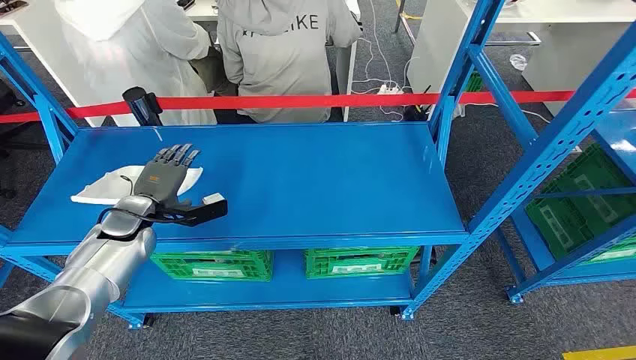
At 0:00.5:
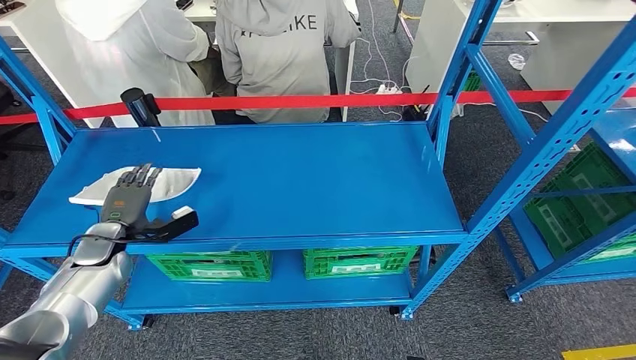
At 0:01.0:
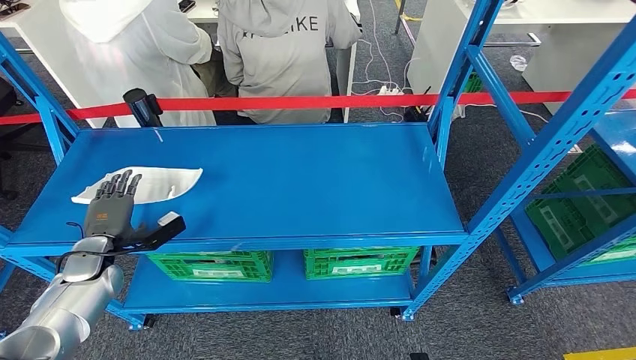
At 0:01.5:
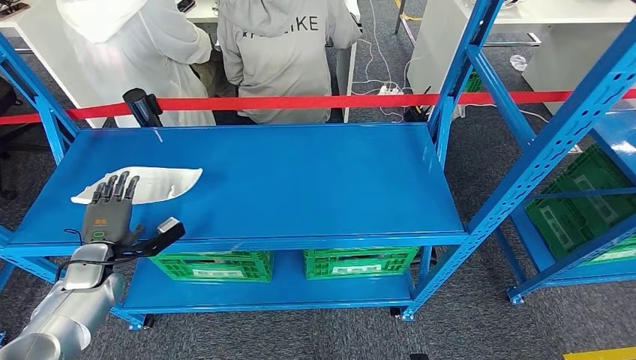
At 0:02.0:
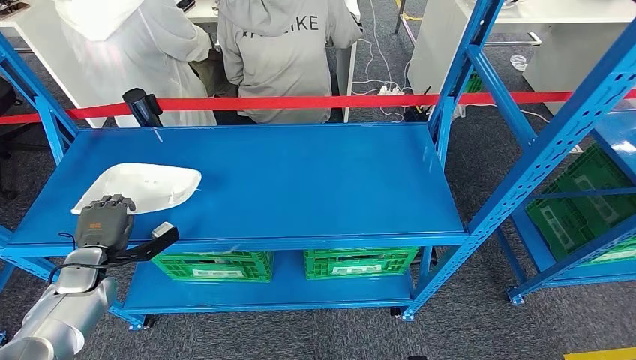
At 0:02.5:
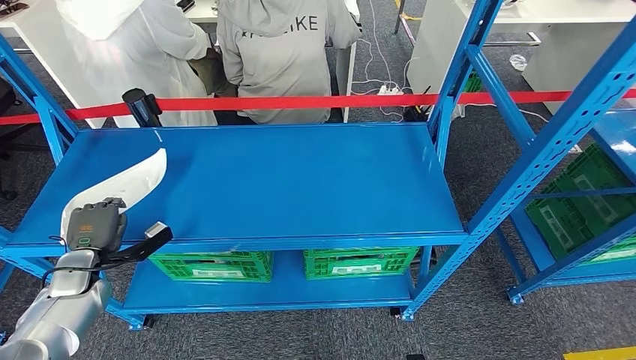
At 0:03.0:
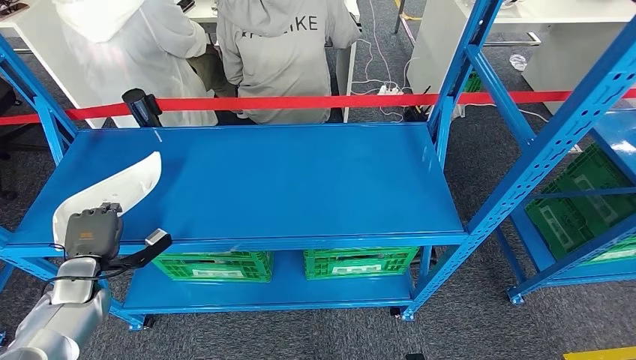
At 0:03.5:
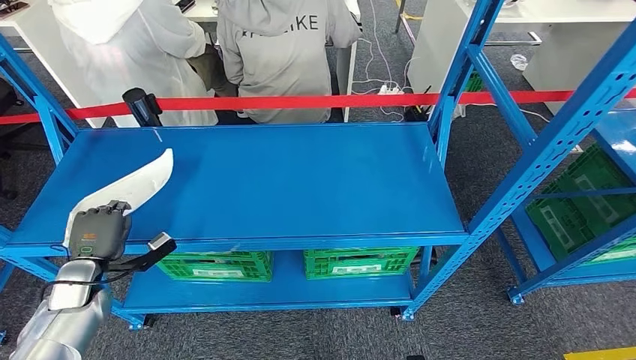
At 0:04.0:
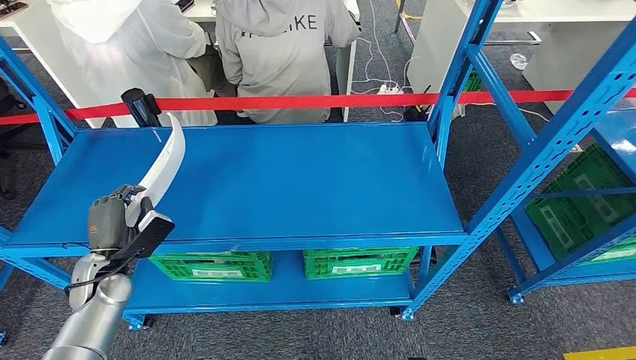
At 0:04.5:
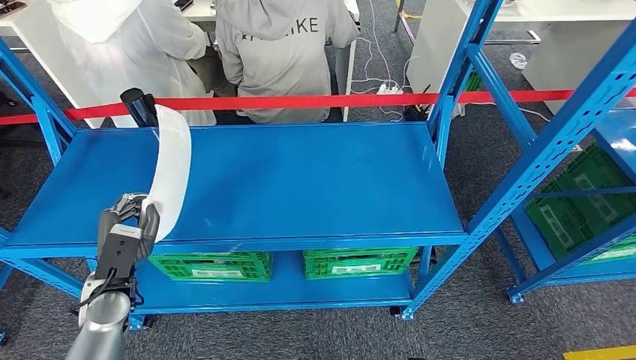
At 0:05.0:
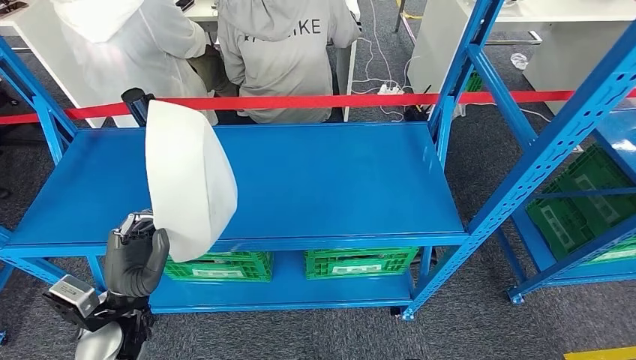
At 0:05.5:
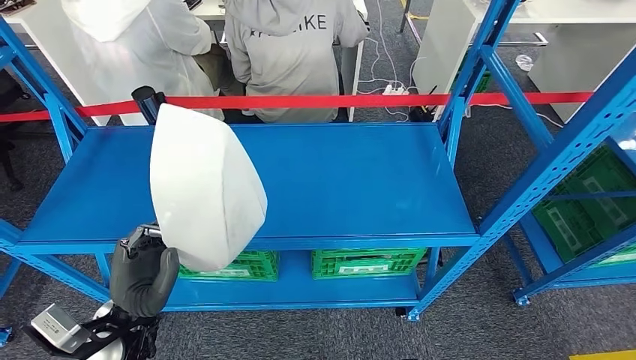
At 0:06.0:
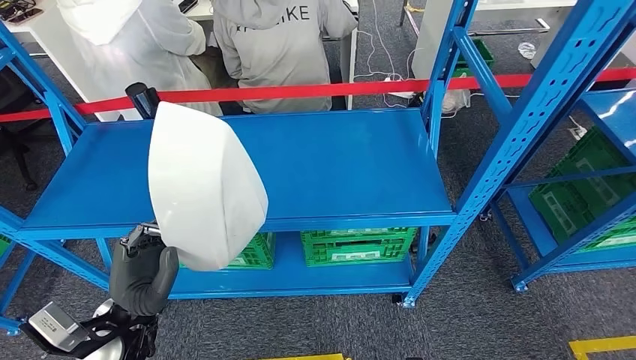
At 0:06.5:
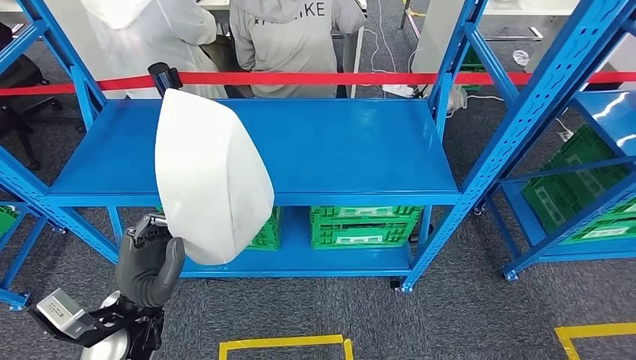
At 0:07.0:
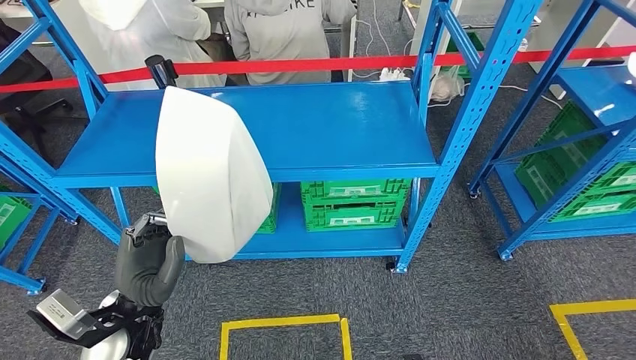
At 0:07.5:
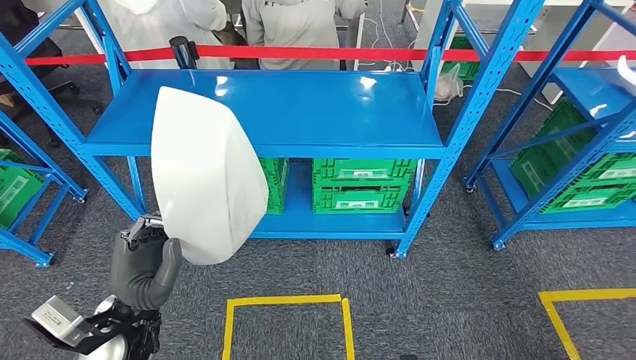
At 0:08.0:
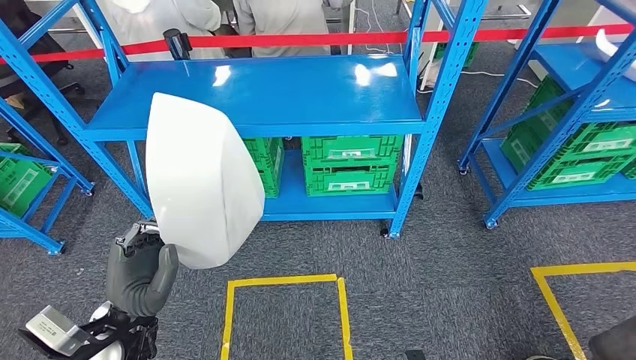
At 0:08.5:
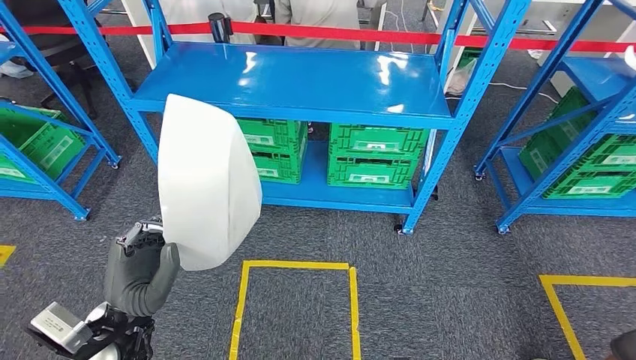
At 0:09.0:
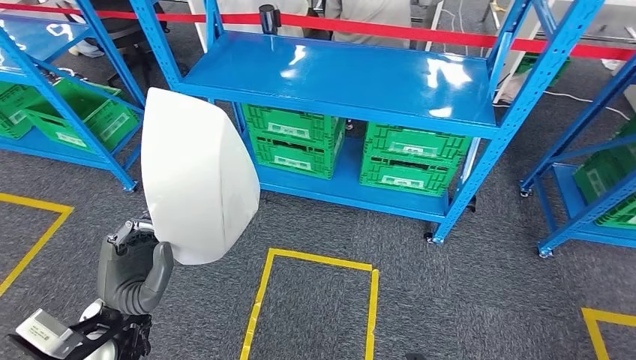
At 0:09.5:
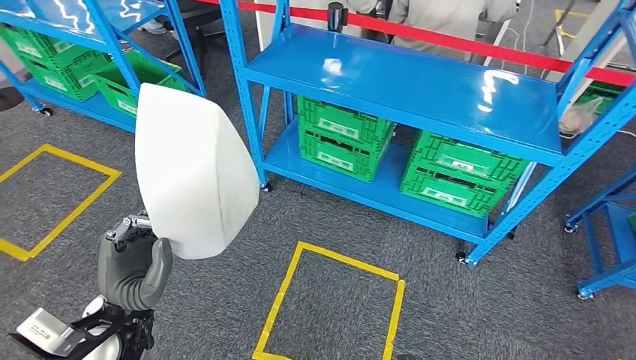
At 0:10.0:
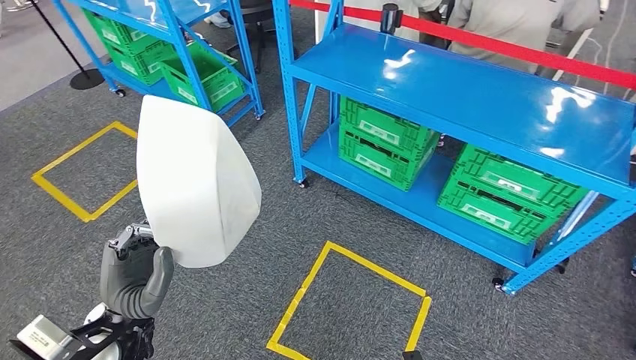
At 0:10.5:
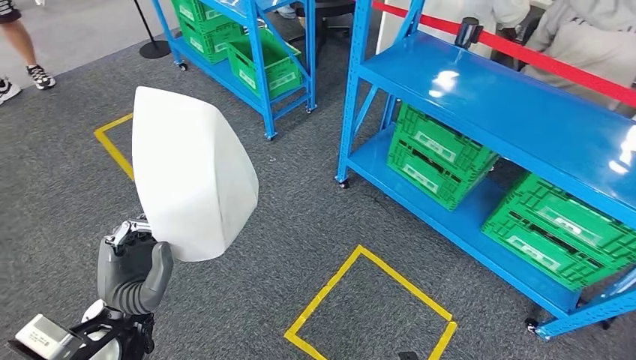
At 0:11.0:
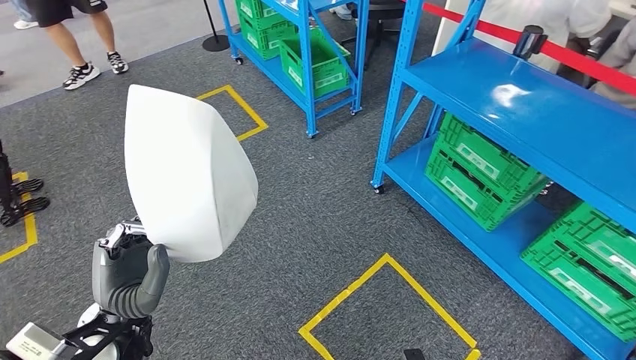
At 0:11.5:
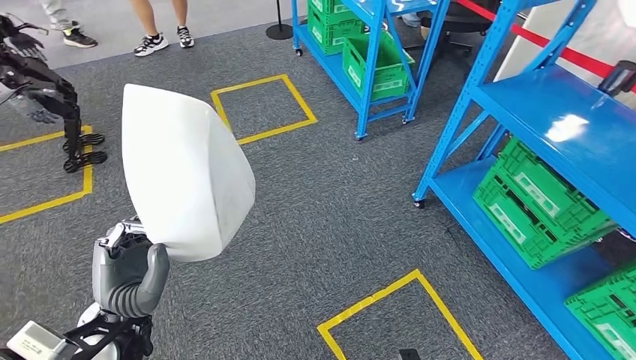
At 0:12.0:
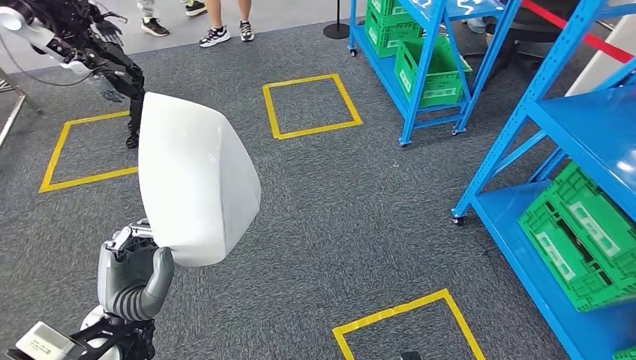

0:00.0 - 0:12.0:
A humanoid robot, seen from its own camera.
Step, 0:00.0 - 0:05.0: Pick up the large material from the shelf.
0:02.0 - 0:04.0: The left hand shifts approximately 5 cm to the right.

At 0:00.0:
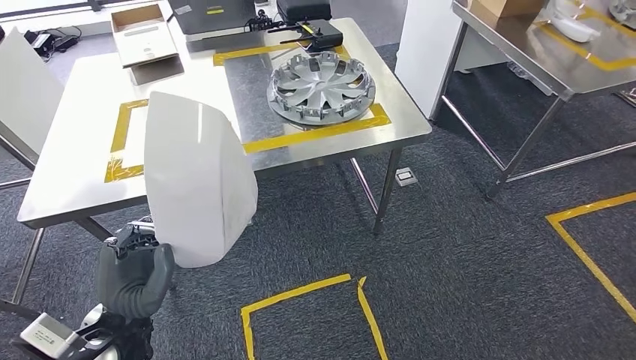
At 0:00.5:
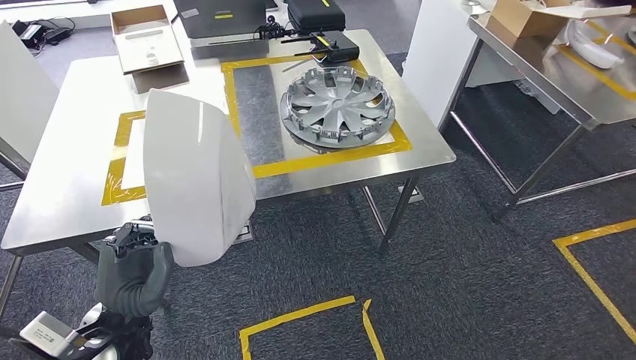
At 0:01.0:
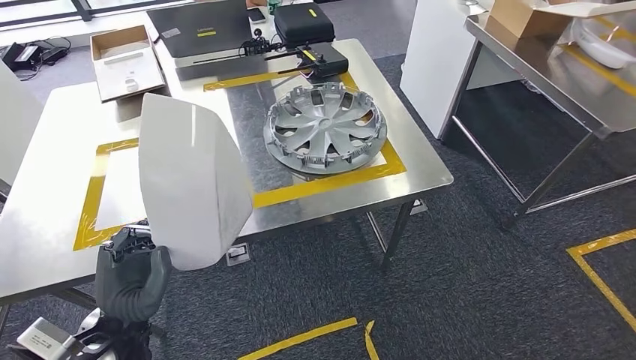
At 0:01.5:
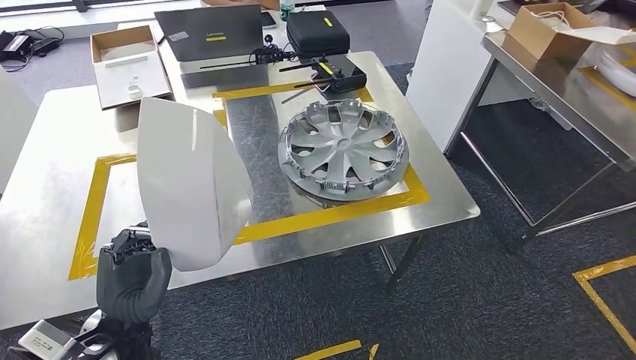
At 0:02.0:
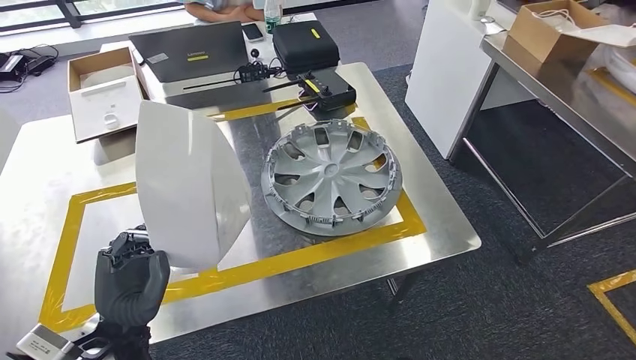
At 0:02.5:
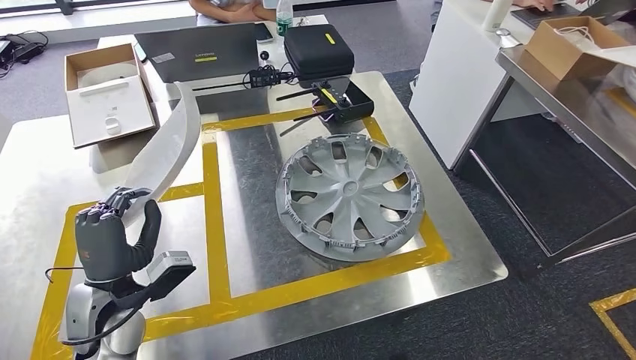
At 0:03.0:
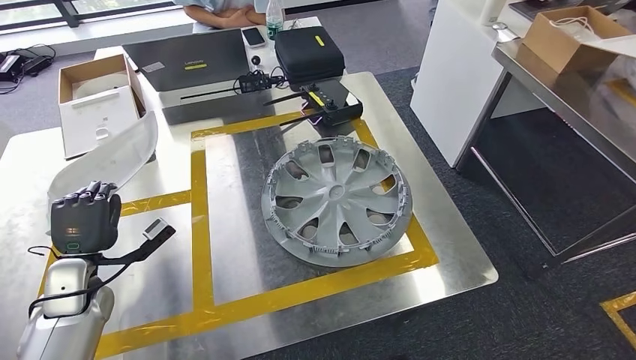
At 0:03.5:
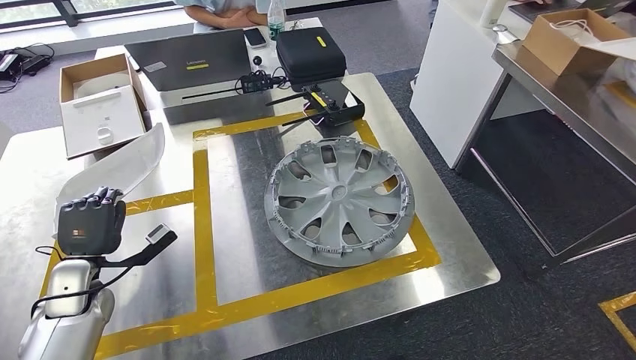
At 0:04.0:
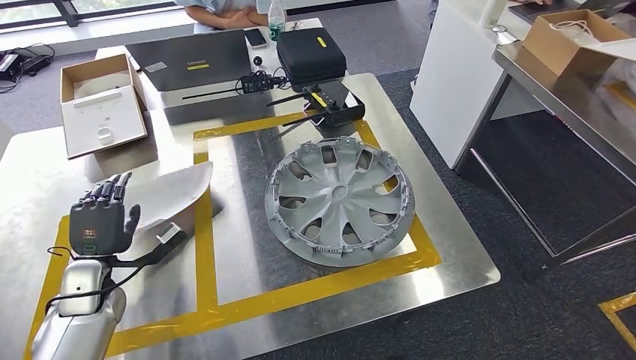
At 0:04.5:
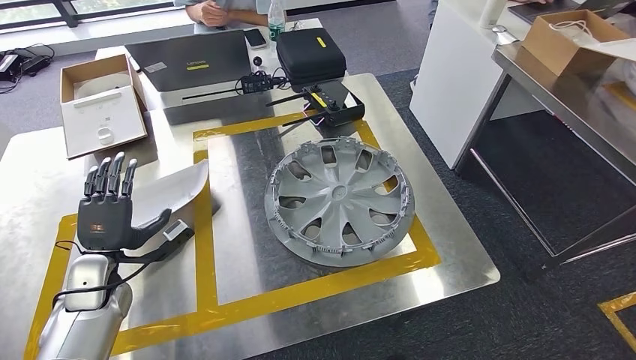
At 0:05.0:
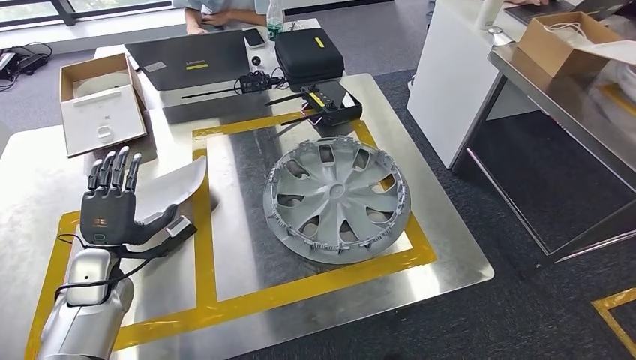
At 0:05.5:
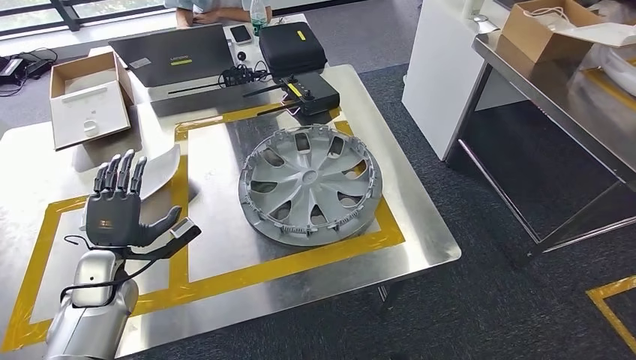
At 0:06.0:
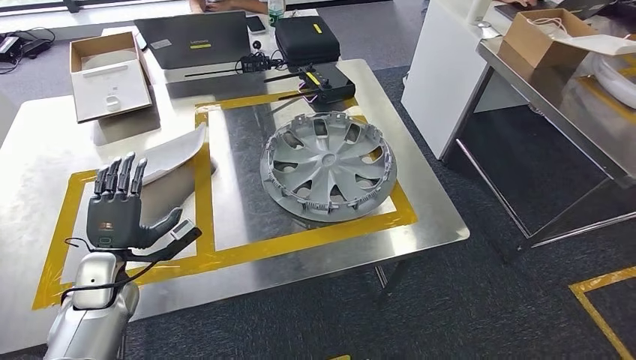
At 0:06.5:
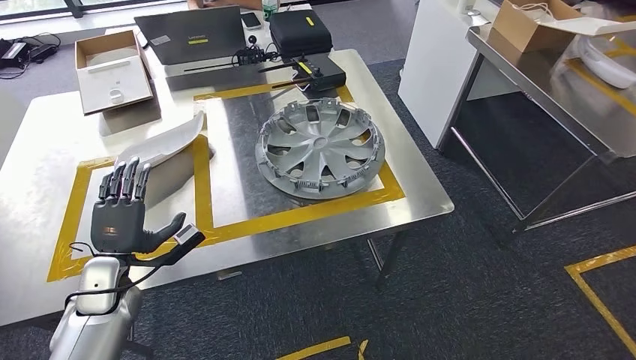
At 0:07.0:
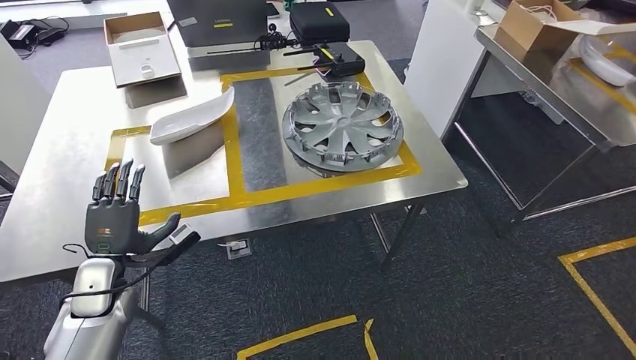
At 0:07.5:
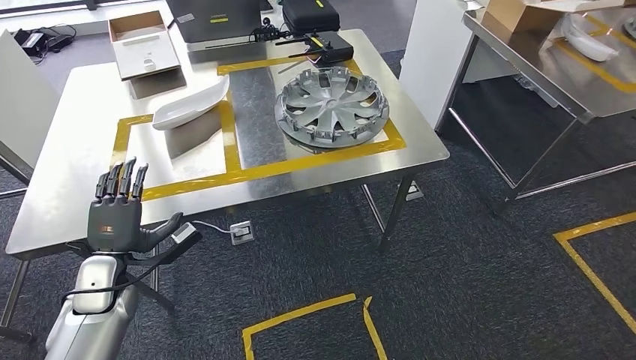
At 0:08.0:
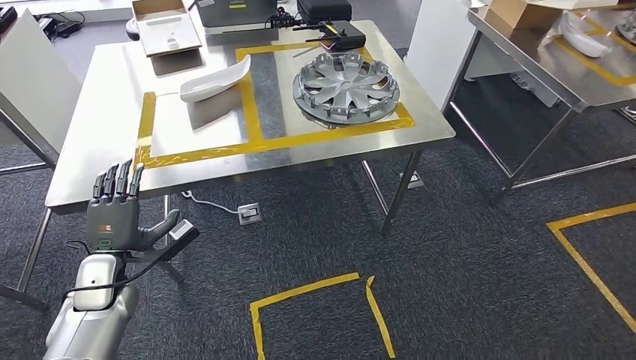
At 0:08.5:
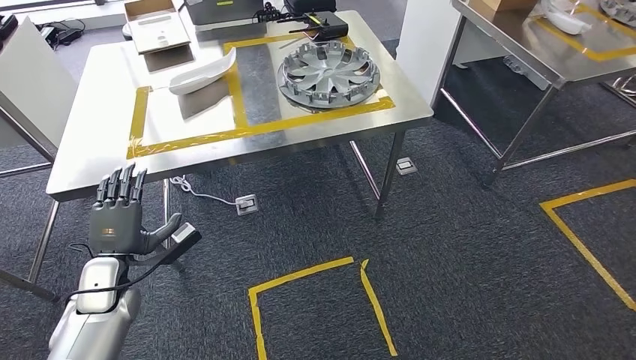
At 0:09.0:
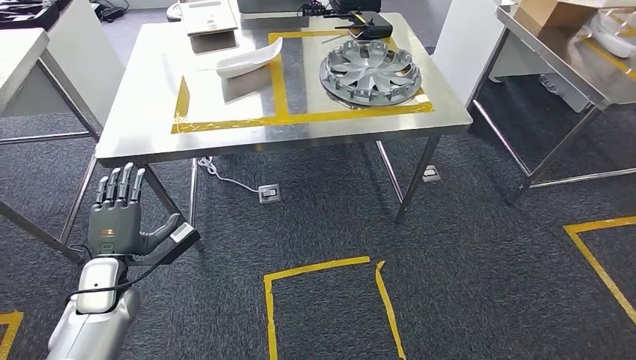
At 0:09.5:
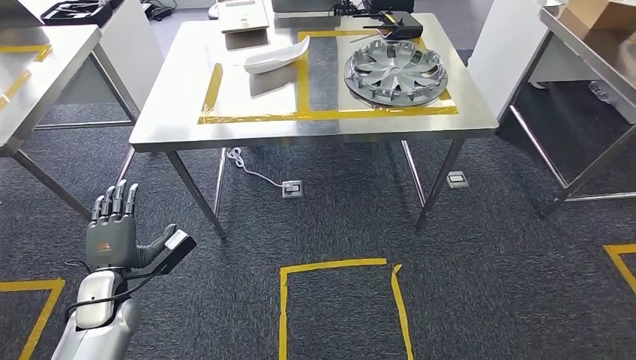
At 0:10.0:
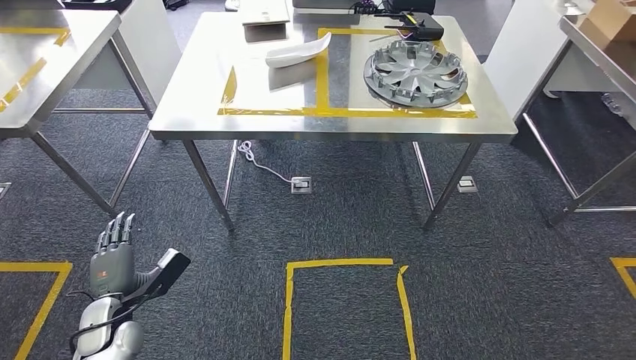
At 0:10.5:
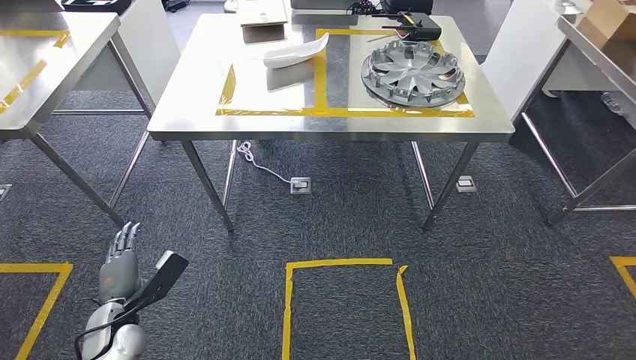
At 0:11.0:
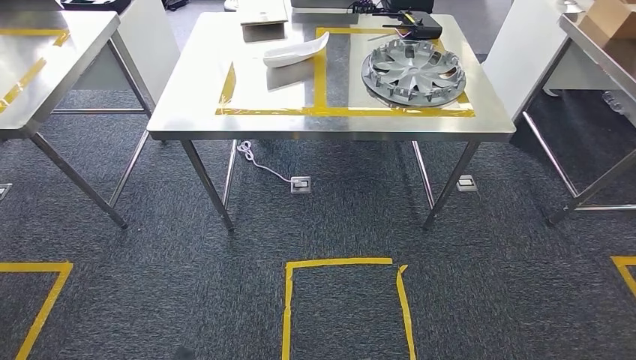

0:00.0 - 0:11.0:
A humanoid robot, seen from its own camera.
Step, 0:02.5 - 0:06.0: Insert the large material into the corresponding slot on the workbench.
Step, 0:07.5 - 0:11.0: Move to the initial position of the shelf.
